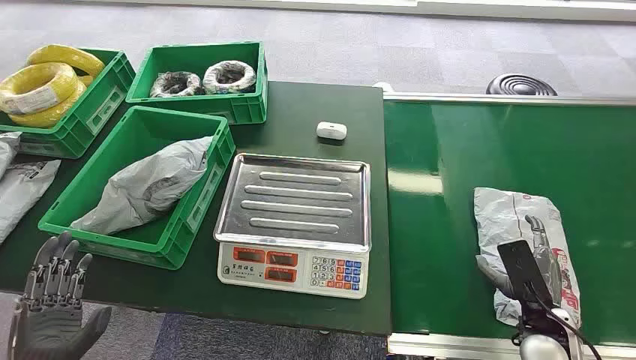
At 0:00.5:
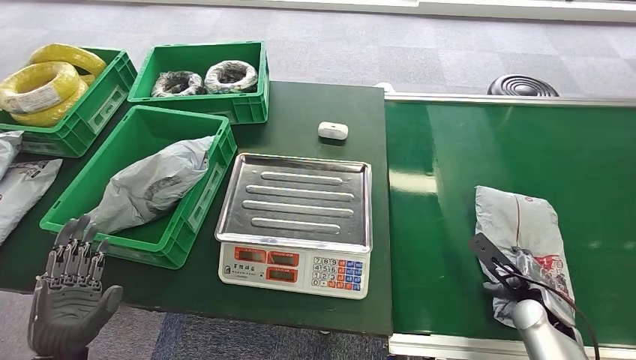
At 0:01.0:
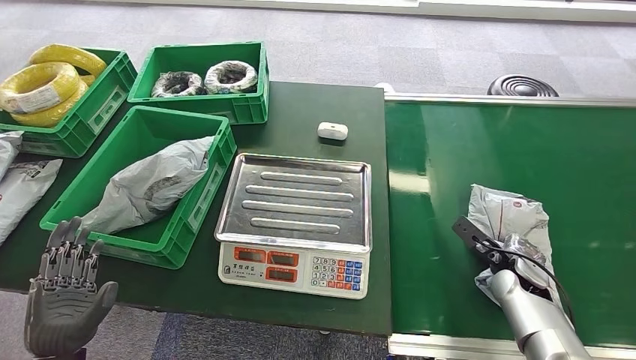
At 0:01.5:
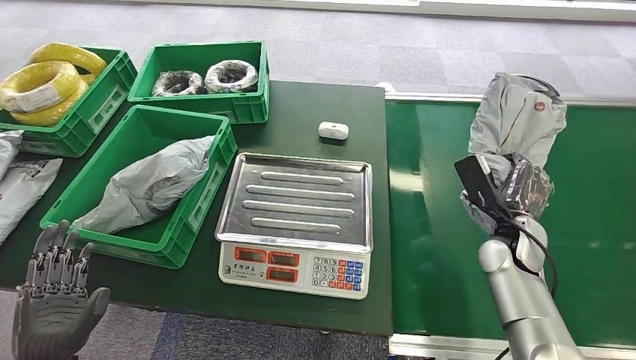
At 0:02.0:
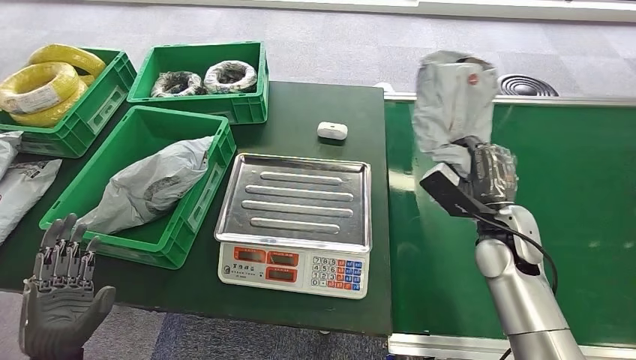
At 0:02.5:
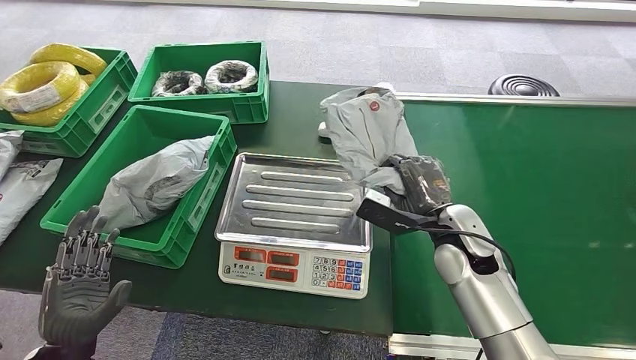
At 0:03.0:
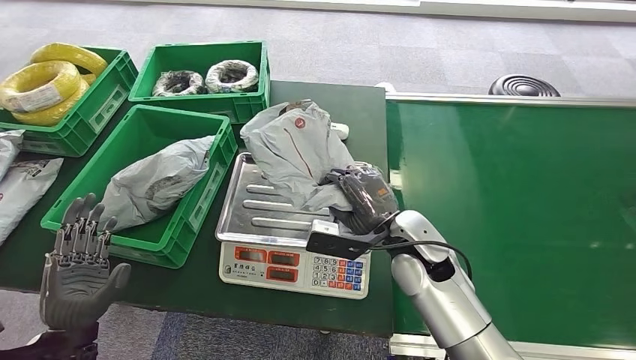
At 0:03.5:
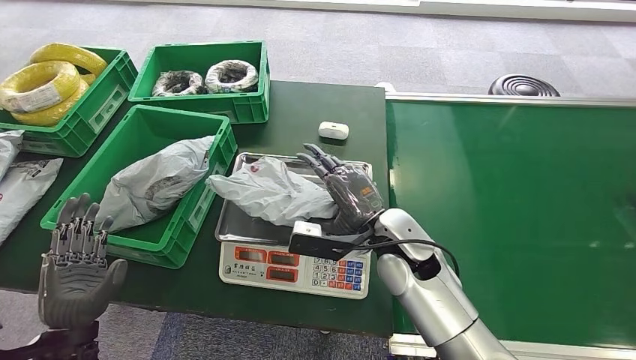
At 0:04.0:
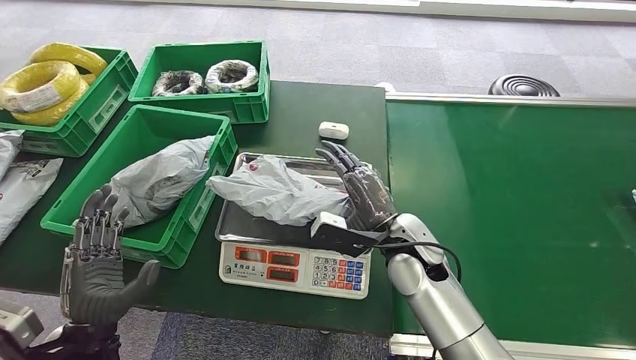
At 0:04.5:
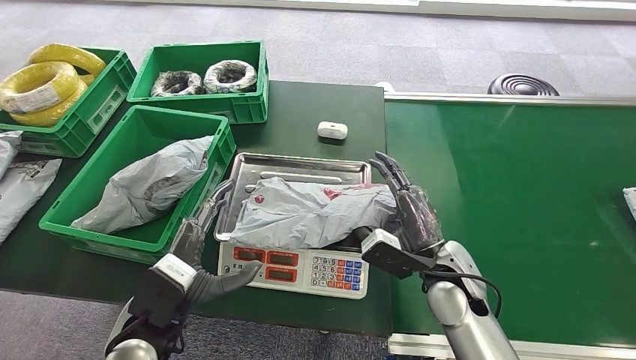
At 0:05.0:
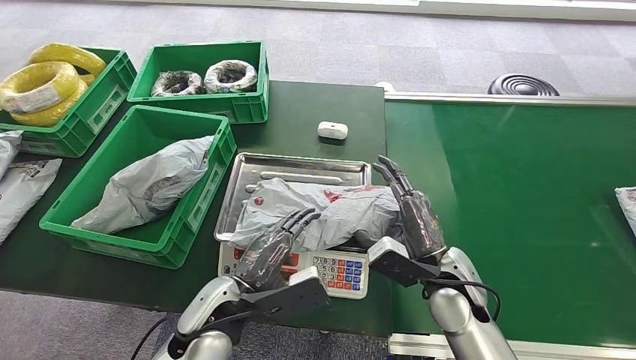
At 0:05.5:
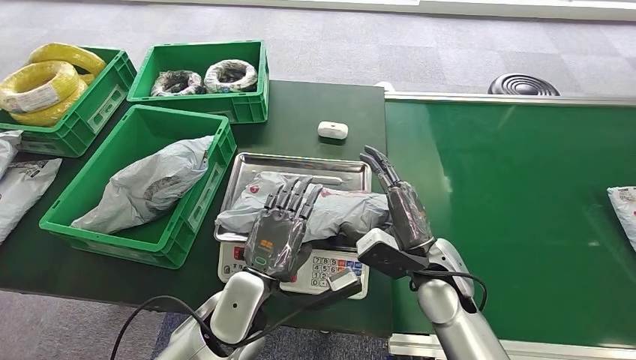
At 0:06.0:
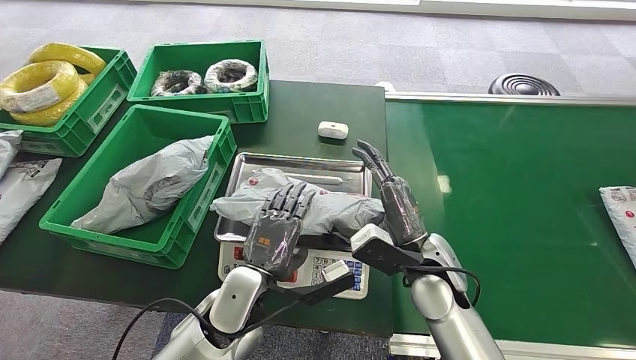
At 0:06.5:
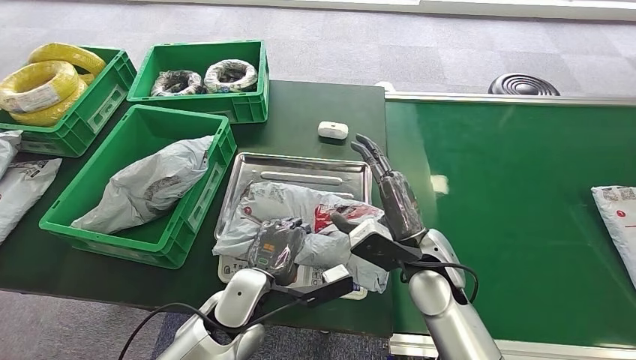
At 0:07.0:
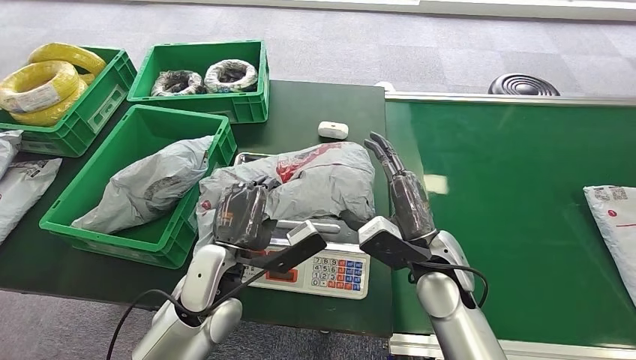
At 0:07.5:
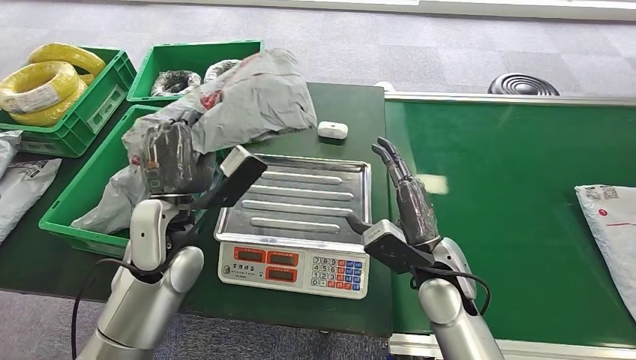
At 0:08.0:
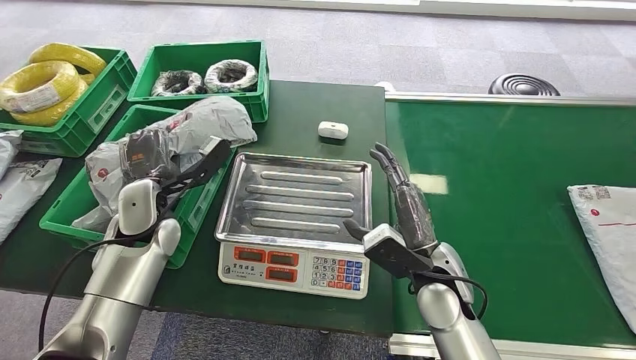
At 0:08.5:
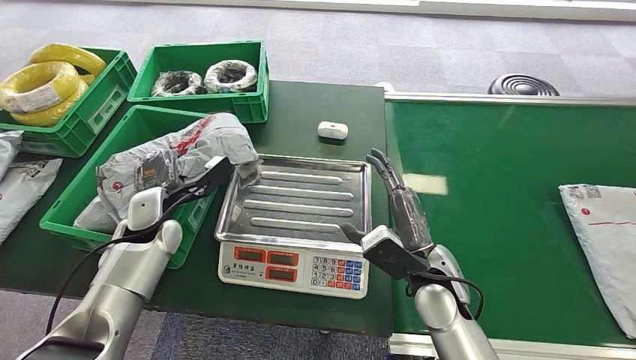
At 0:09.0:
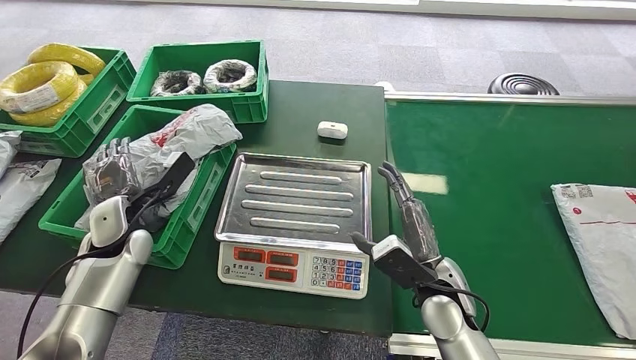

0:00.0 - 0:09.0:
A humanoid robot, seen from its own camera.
Step, 0:00.0 - 0:01.5: Pick up the package from the conveyor belt.
Step, 0:02.5 - 0:05.5: Place the package onto the inbound machine.
Step, 0:06.0 - 0:07.0: Pick up the package from the inbound machine.
Step, 0:08.0 - 0:09.0: Place the package into the parcel locker.
0:04.5 - 0:07.0: The left hand heads to the right and forward, covering about 10 cm.
